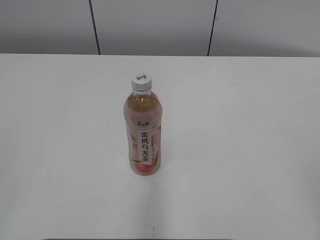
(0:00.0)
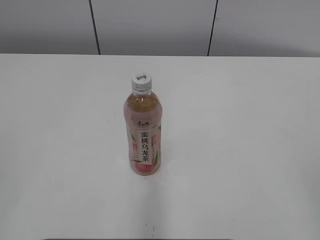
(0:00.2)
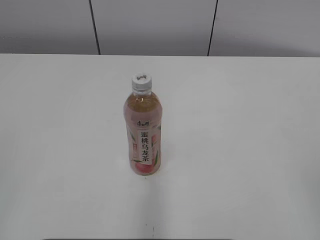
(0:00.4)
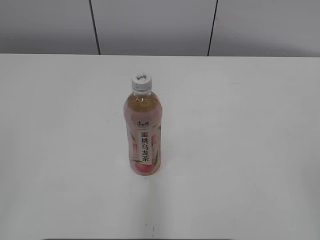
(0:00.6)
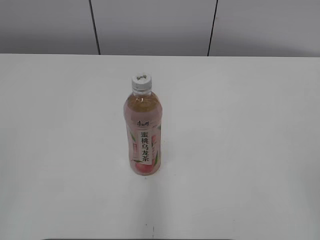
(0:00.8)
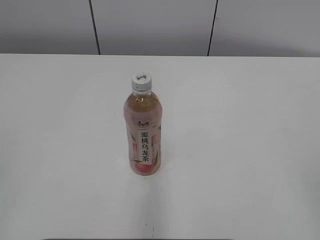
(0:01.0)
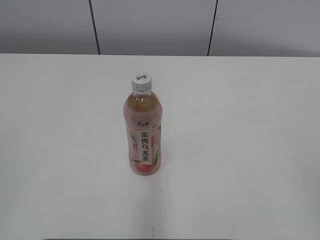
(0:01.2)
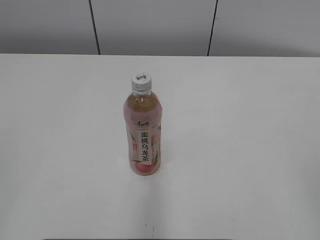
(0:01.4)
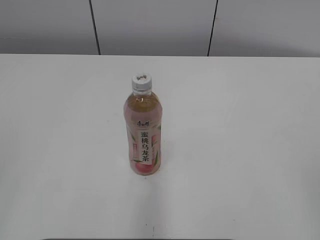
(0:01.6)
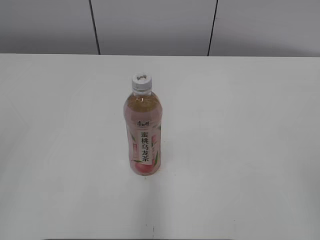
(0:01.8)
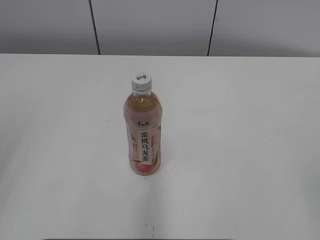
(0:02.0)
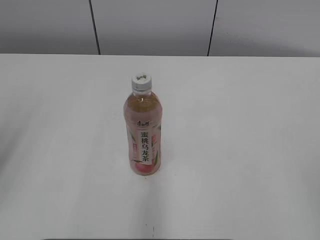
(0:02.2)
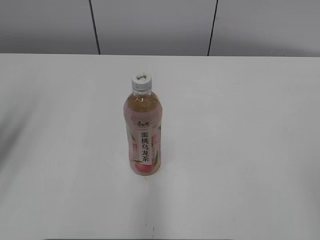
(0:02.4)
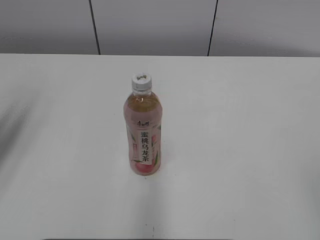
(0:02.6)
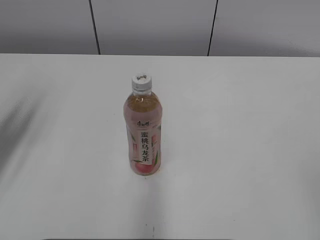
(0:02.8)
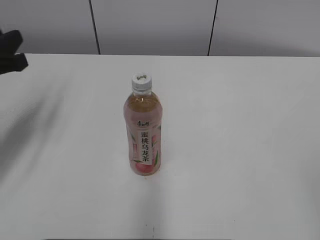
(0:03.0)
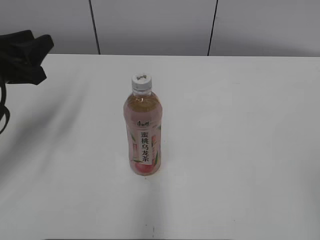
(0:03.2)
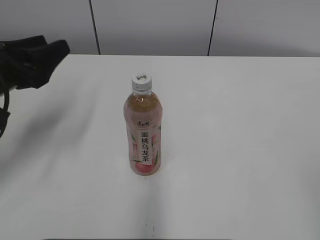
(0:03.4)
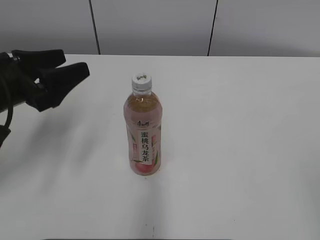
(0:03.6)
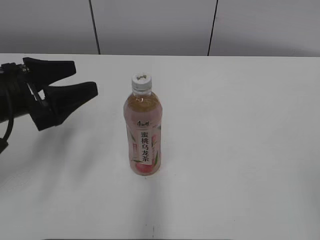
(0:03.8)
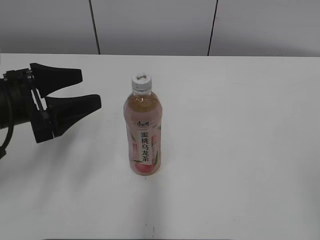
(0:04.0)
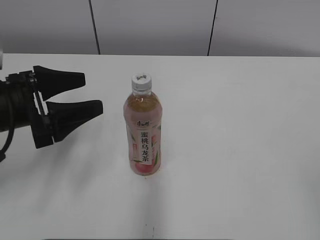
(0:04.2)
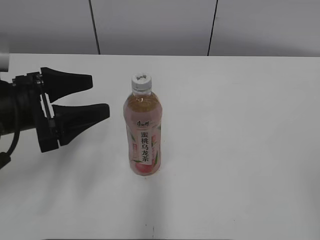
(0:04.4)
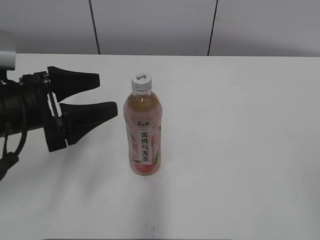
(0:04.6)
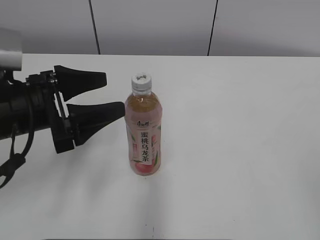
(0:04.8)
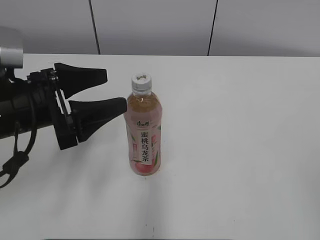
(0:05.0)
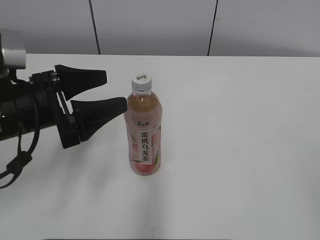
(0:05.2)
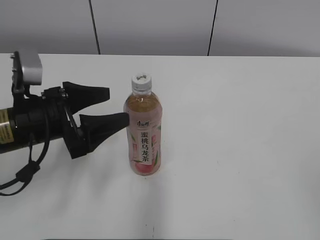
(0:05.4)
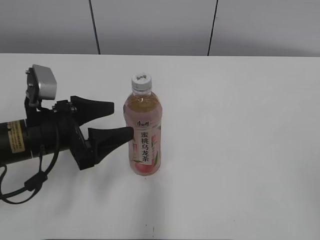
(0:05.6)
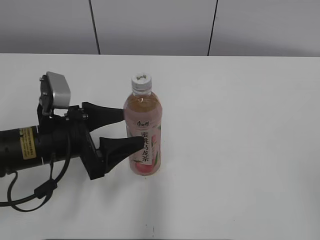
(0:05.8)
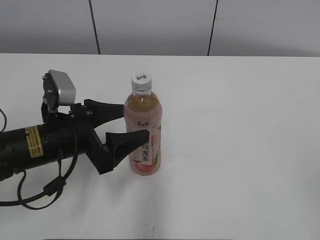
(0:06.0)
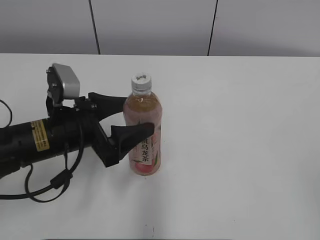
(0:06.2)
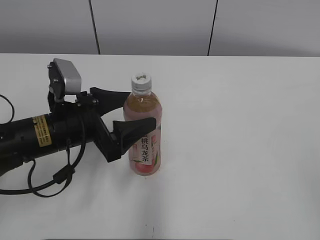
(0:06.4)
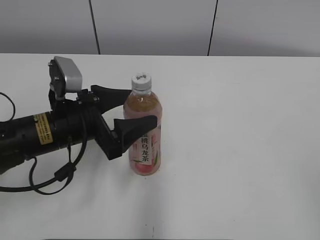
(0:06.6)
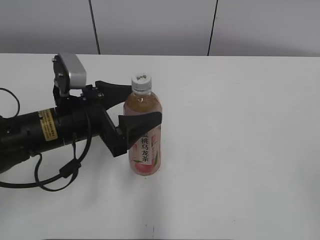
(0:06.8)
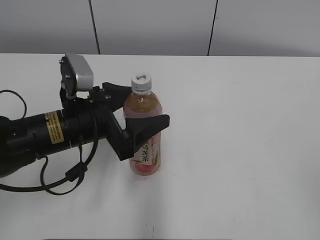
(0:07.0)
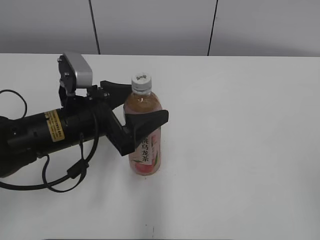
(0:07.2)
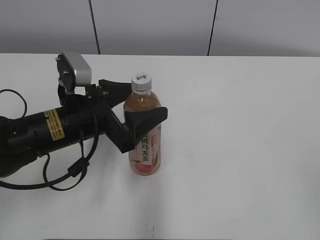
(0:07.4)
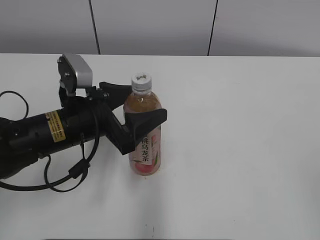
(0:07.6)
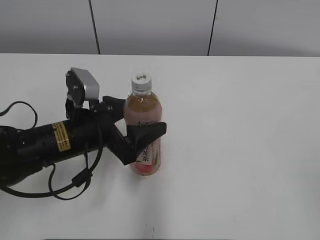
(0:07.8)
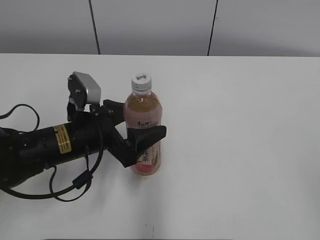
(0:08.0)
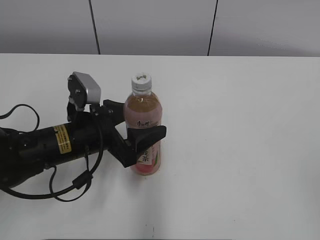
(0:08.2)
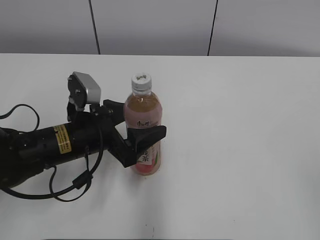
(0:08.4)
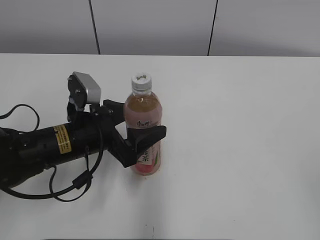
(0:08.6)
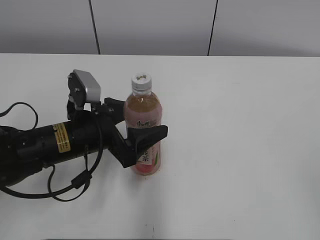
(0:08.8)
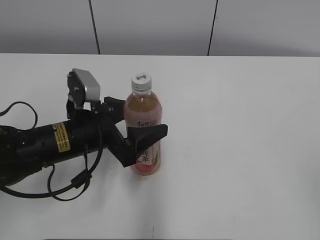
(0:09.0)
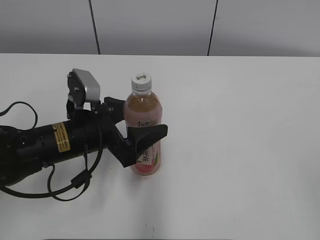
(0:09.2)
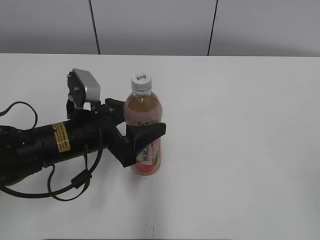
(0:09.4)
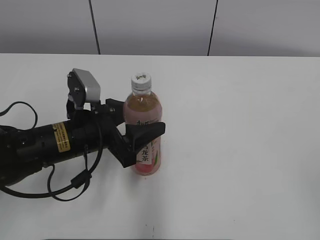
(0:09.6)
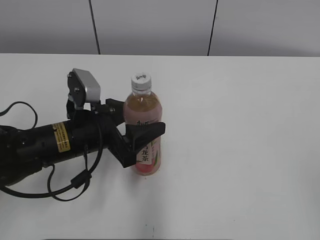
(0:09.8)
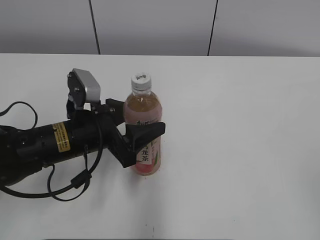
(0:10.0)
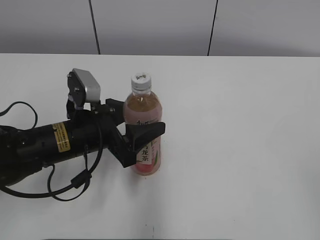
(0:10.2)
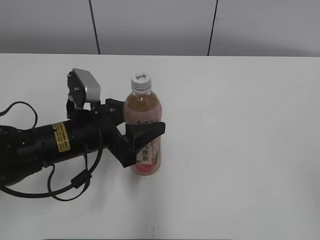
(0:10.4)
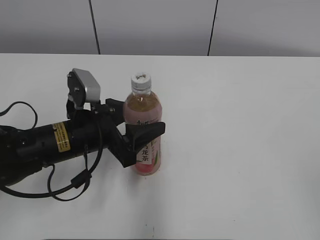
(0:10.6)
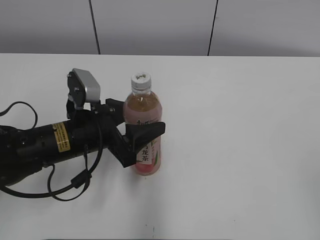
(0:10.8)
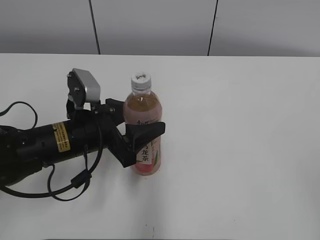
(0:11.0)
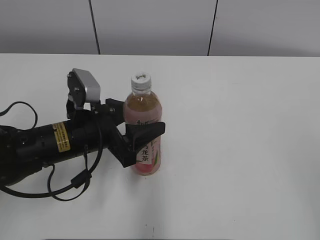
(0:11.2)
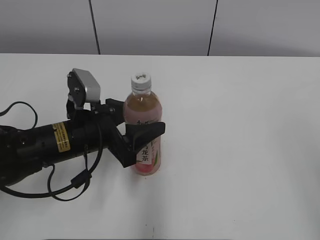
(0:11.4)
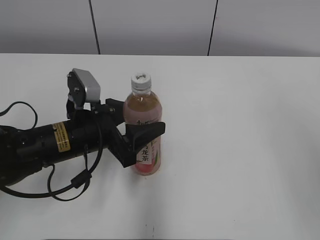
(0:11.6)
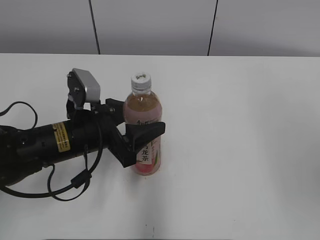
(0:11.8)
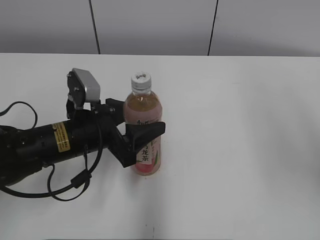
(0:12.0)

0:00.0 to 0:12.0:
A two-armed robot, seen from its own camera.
Step, 0:00.0 to 0:09.8: Grab the Peach Oolong Tea with the left hand.
0:01.6 to 0:03.0: The left gripper shifts approximately 30 cm forward.
0:03.0 to 0:04.4: The left gripper heads to the right, covering roughly 5 cm, and opens its fingers.
0:04.4 to 0:06.0: The left gripper heads downward and to the right, covering about 10 cm.
0:06.0 to 0:09.0: The grippers stay close to where they were, moving slightly.
0:09.0 to 0:10.4: Both grippers stay put.

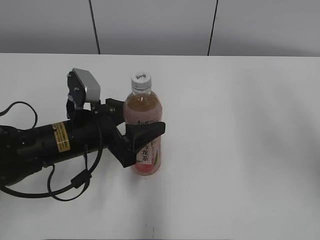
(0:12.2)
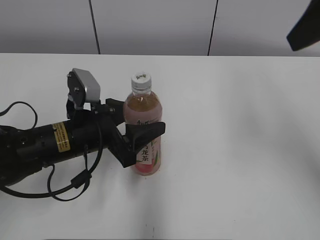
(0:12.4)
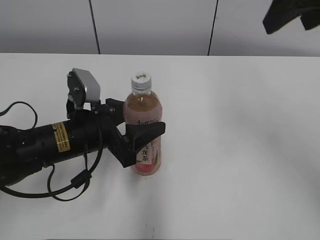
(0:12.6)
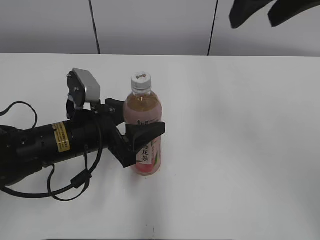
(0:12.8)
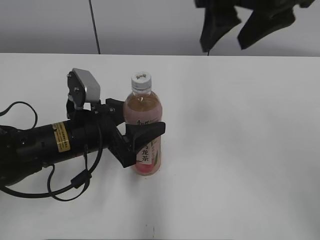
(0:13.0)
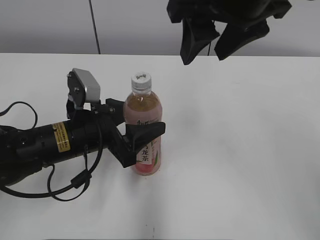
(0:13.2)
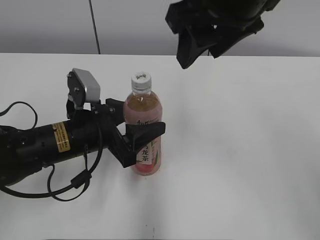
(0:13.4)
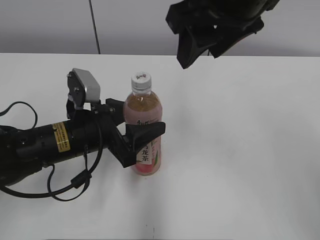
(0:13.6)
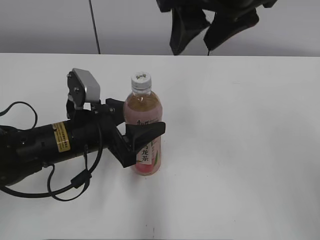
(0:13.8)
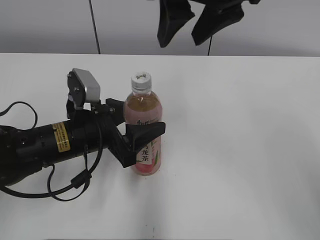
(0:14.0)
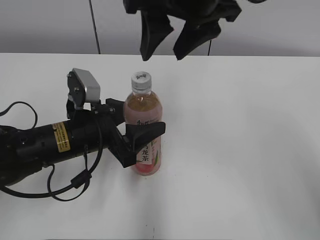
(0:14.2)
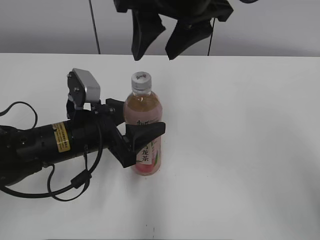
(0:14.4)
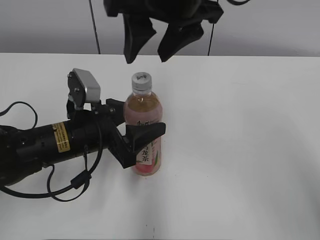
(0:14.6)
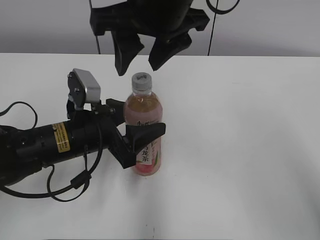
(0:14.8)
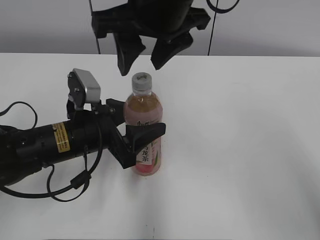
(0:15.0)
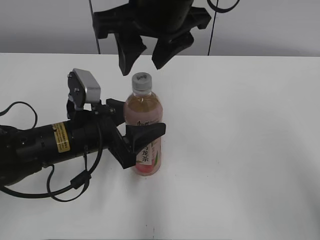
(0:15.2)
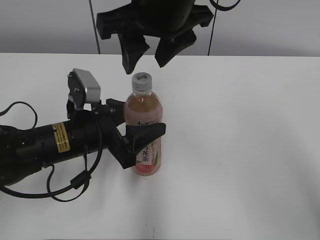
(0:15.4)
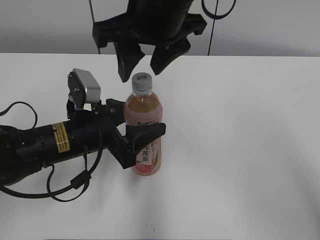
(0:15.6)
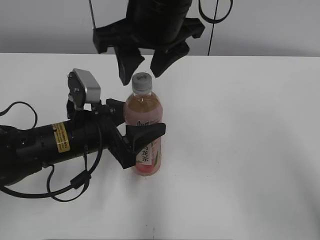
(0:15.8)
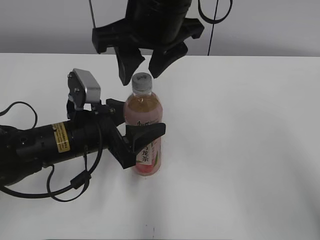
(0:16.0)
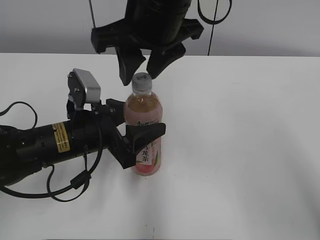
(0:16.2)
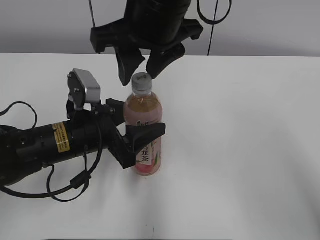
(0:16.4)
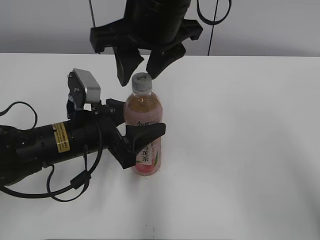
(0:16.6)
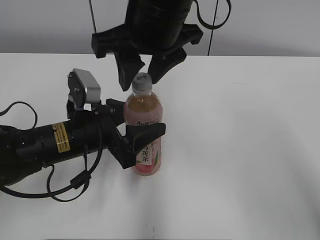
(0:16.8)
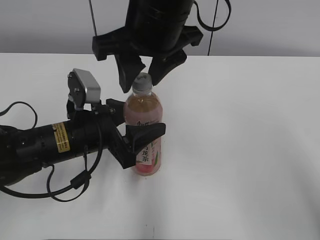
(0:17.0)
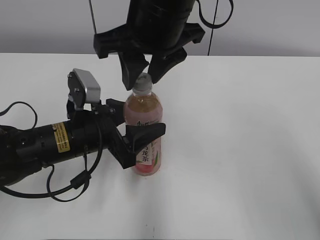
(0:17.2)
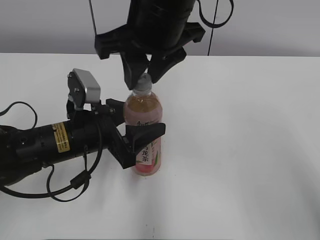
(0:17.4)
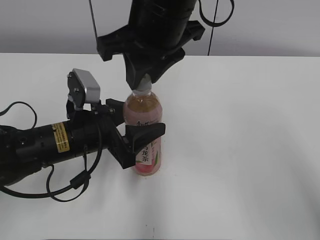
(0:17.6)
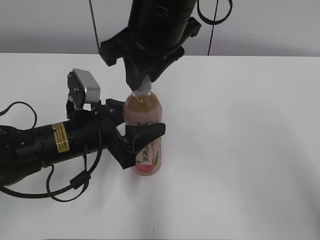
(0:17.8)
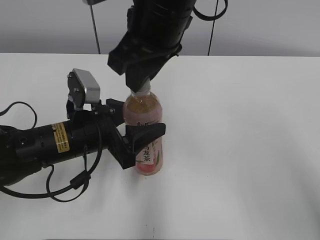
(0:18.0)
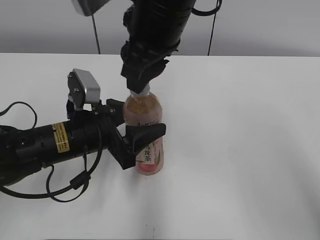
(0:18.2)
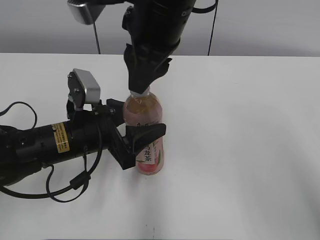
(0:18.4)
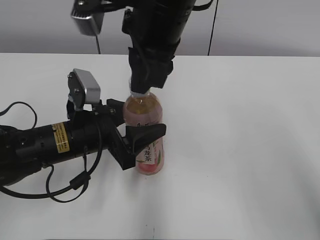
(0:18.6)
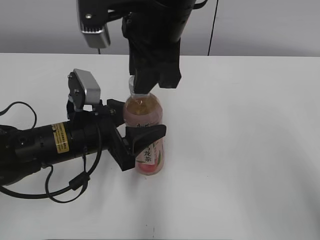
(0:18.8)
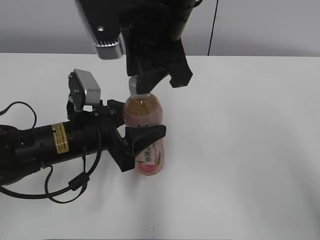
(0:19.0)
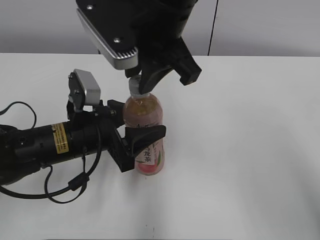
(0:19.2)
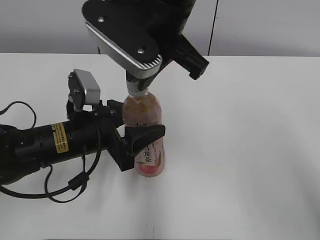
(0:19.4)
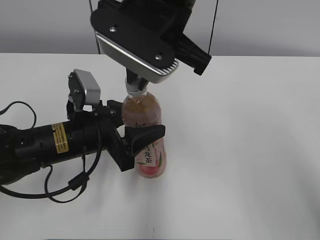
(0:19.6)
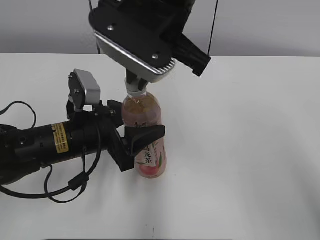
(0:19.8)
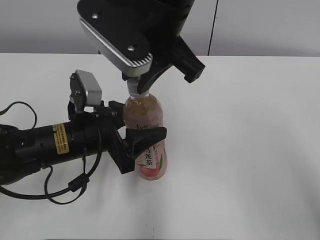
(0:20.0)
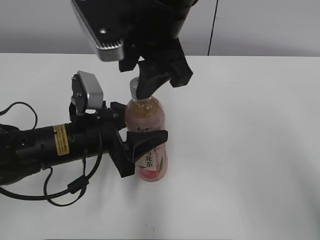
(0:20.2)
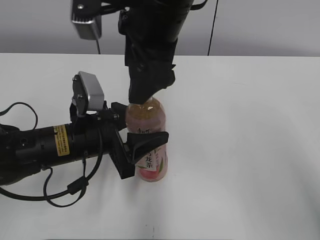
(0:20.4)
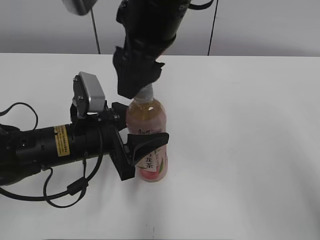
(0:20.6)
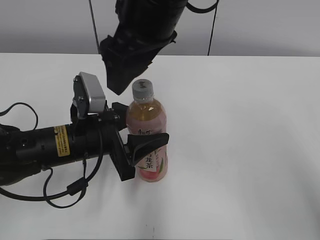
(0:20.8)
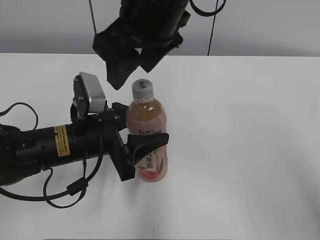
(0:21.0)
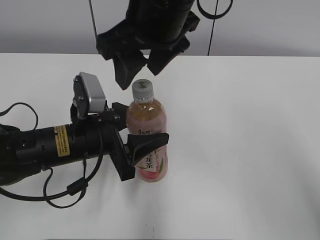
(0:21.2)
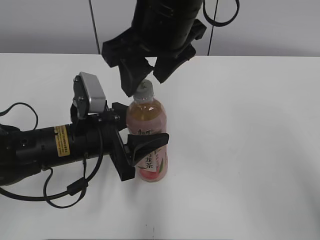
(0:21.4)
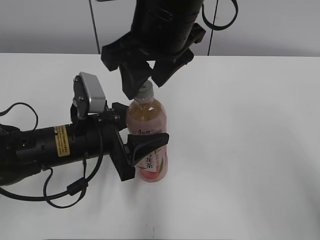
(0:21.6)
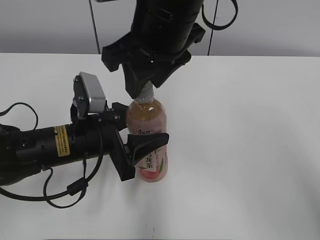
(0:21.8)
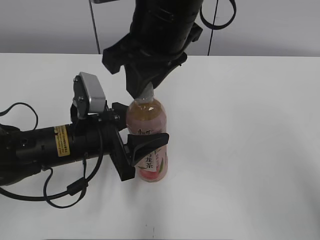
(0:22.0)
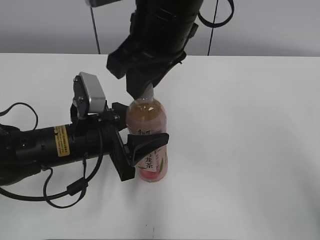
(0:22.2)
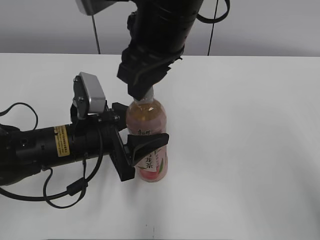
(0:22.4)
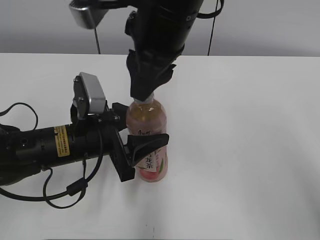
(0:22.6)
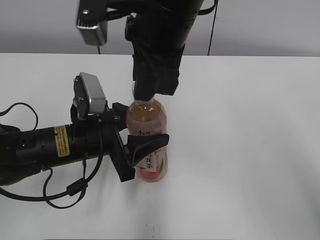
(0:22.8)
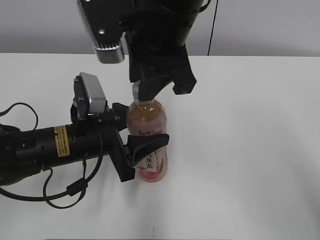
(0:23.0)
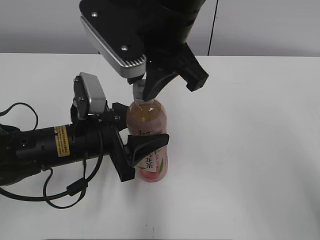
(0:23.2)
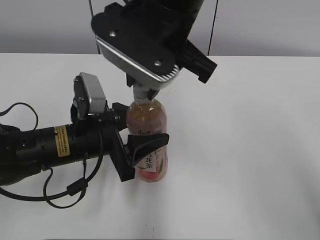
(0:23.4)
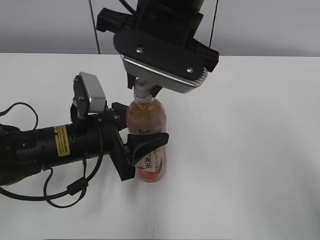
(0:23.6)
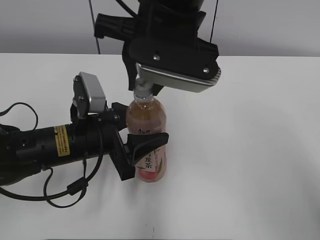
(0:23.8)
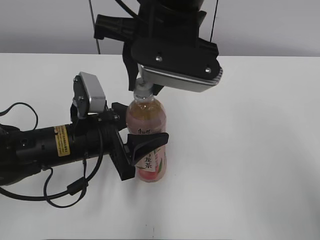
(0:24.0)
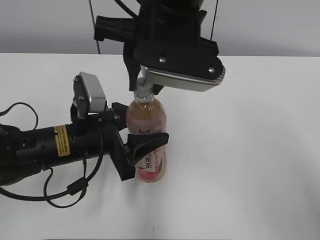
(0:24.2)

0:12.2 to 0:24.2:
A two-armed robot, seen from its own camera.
0:12.2 to 0:13.8: The right gripper is displaced to the left and forward by some 20 cm.
0:13.8 to 0:15.2: The right gripper shifts some 5 cm to the left.
0:15.2 to 0:16.6: The grippers move only a little.
0:16.6 to 0:18.2: The right gripper closes.
0:19.8 to 0:21.2: The right gripper opens its fingers.
0:21.2 to 0:22.6: The right gripper closes.
